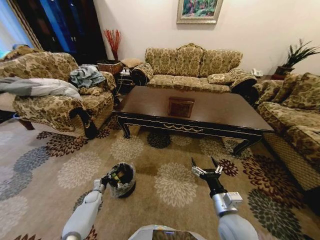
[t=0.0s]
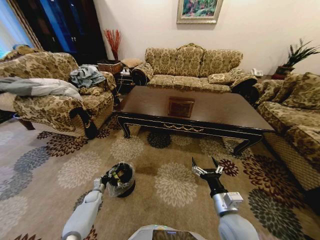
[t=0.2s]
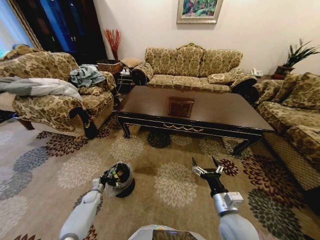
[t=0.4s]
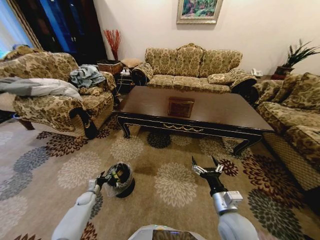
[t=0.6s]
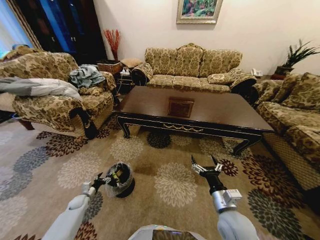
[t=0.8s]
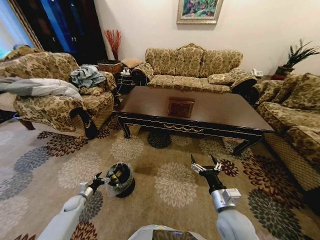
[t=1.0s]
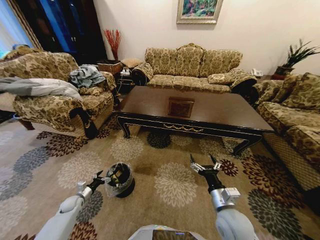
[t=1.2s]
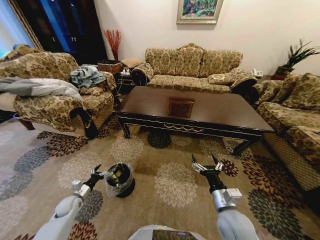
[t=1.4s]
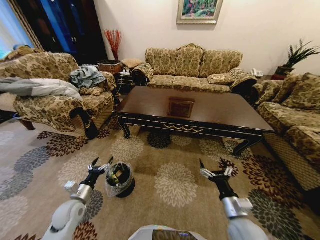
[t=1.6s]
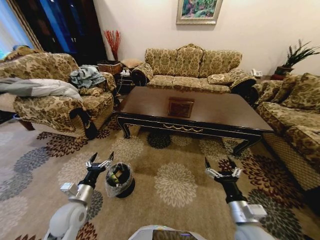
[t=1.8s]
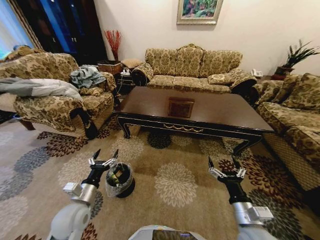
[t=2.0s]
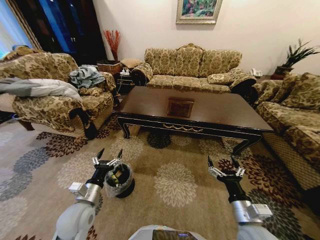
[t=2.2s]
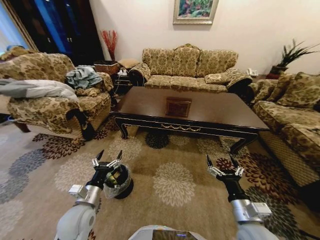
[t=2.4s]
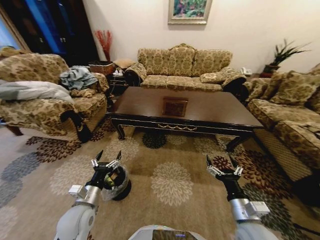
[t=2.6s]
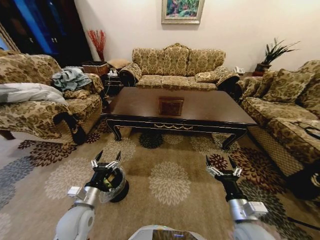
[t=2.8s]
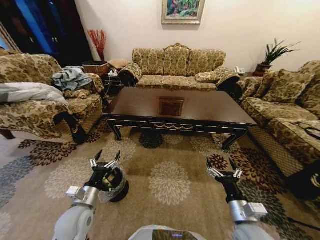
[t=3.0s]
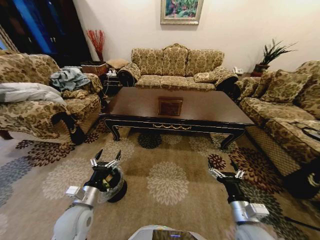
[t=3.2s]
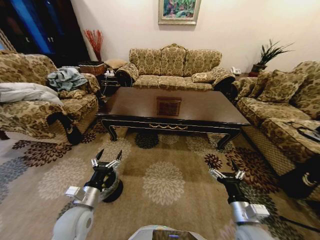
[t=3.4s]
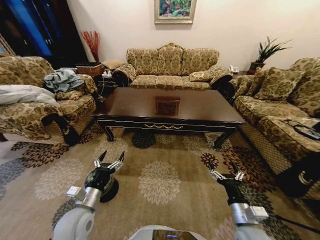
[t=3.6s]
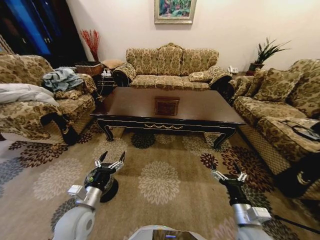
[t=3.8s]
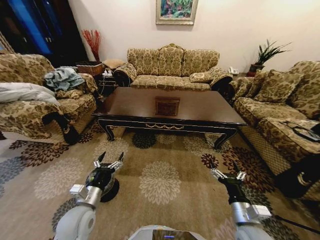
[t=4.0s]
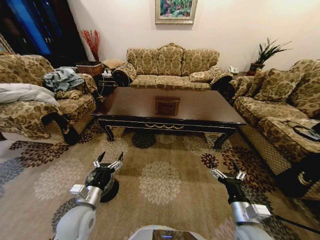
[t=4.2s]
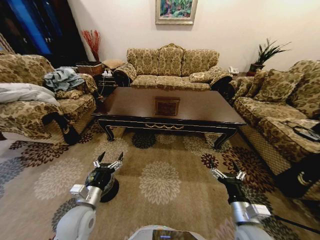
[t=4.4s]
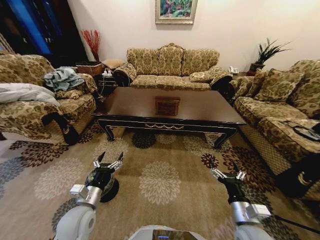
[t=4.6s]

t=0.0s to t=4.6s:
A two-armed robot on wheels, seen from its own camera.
Task of the whole recording: Move to the front of the table and place the trash on the table into the trash bin.
t=0.0s to t=1.6s: The left gripper is displaced upward and backward by about 25 cm, and opens.
t=1.6s to t=3.0s: The left gripper goes roughly 10 cm to the right and upward.
